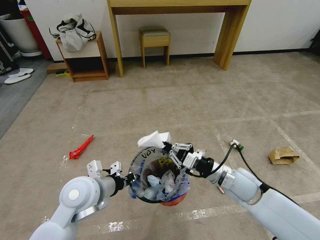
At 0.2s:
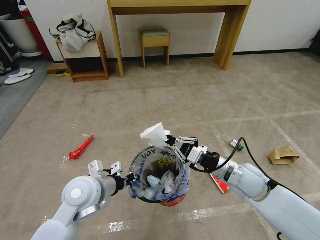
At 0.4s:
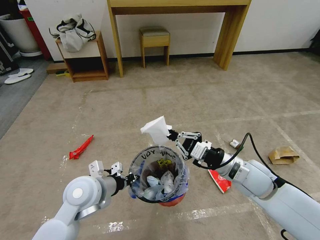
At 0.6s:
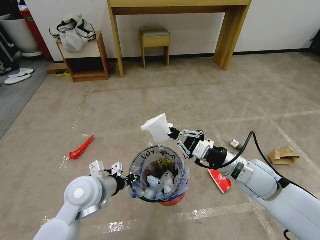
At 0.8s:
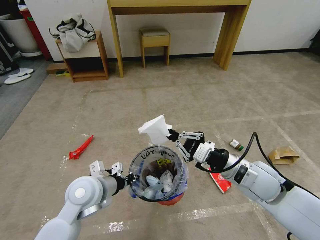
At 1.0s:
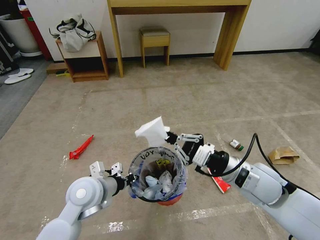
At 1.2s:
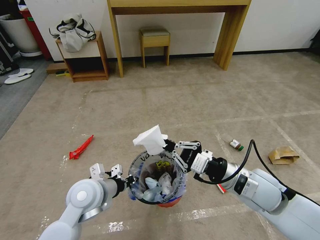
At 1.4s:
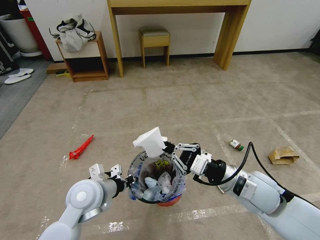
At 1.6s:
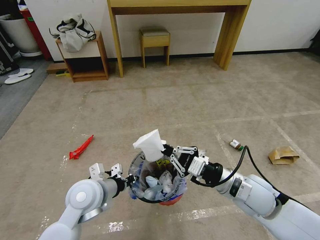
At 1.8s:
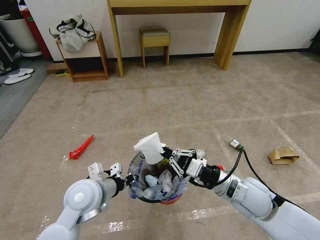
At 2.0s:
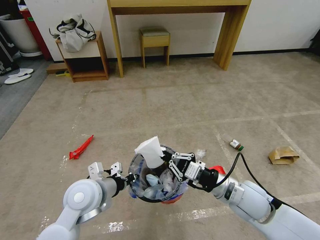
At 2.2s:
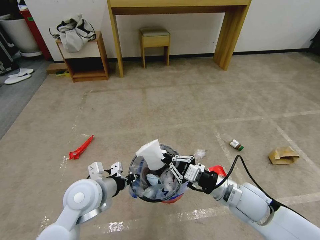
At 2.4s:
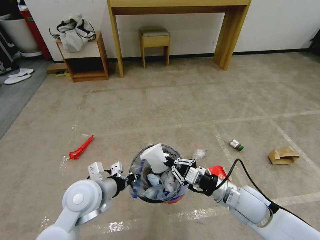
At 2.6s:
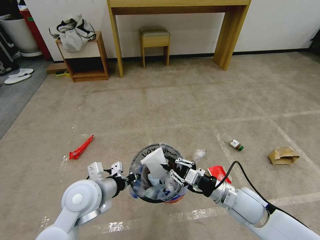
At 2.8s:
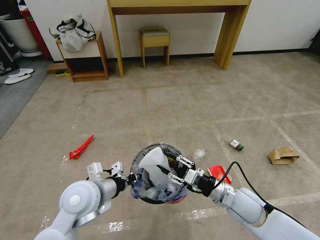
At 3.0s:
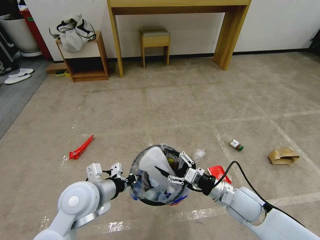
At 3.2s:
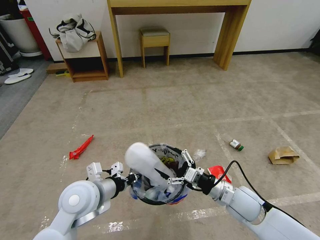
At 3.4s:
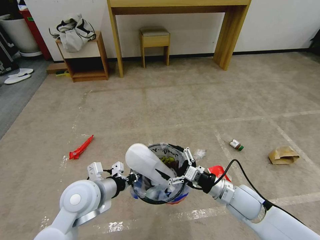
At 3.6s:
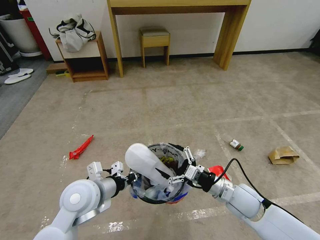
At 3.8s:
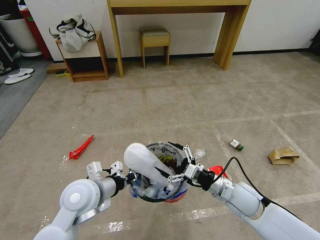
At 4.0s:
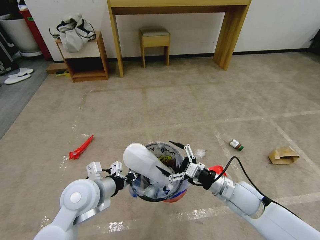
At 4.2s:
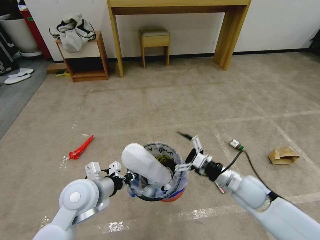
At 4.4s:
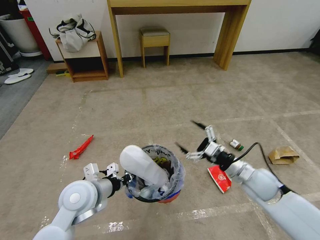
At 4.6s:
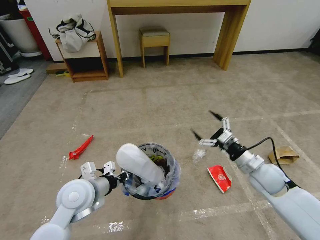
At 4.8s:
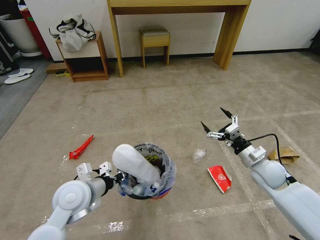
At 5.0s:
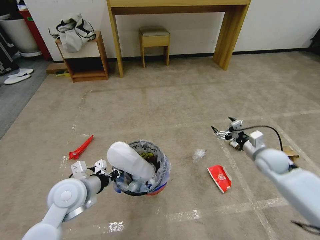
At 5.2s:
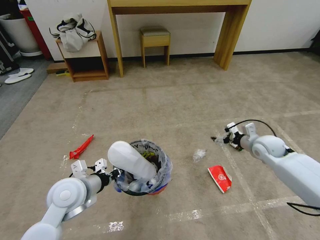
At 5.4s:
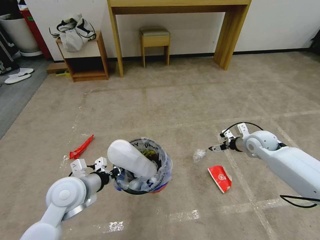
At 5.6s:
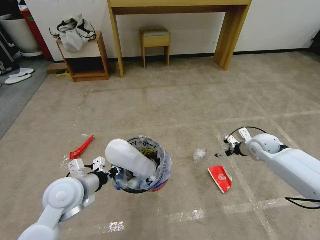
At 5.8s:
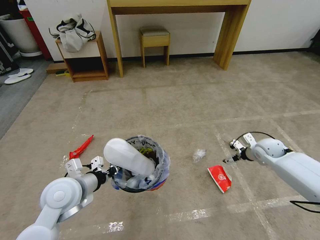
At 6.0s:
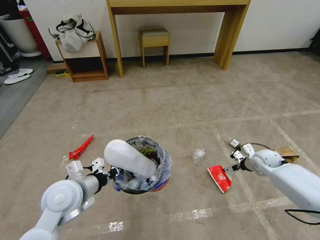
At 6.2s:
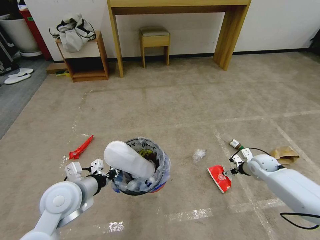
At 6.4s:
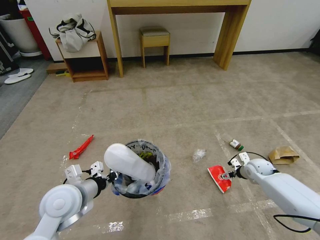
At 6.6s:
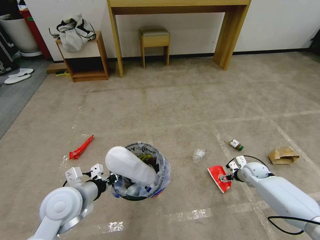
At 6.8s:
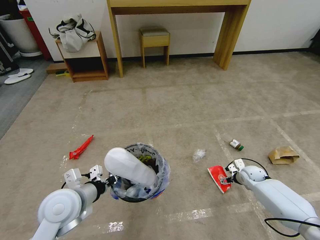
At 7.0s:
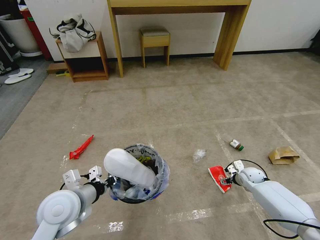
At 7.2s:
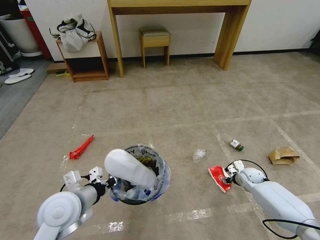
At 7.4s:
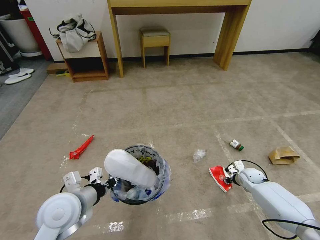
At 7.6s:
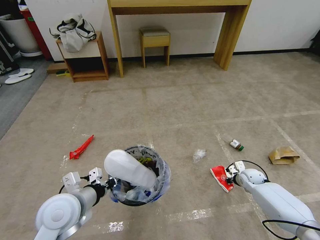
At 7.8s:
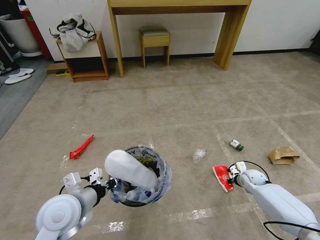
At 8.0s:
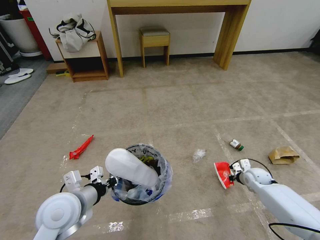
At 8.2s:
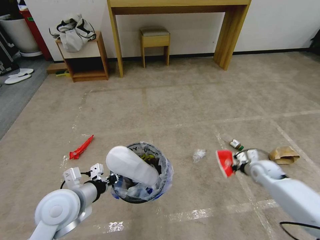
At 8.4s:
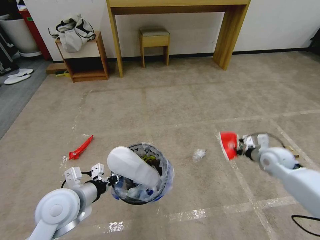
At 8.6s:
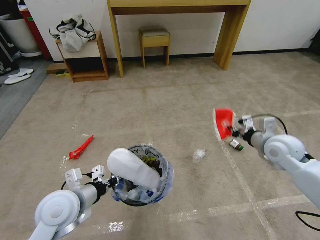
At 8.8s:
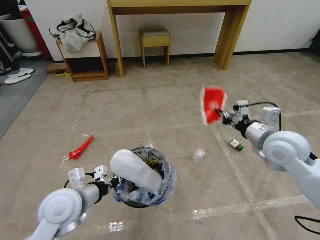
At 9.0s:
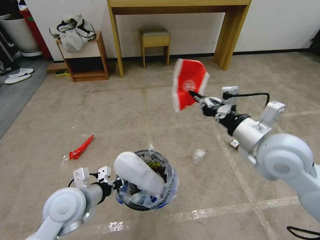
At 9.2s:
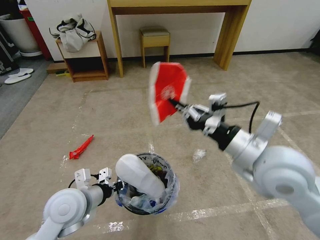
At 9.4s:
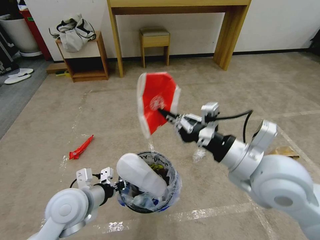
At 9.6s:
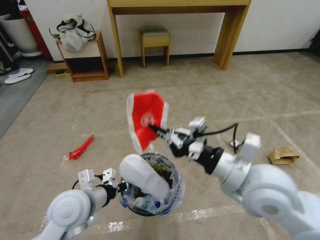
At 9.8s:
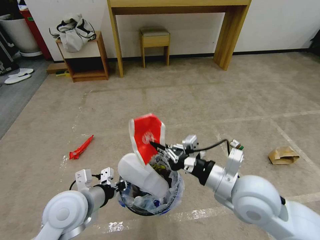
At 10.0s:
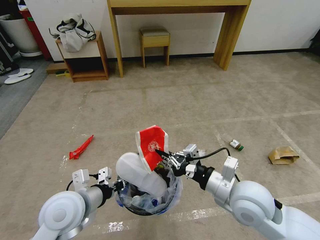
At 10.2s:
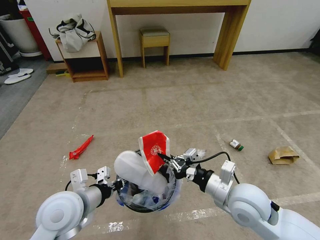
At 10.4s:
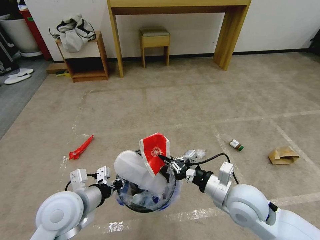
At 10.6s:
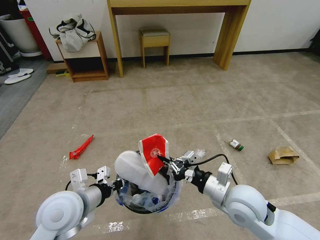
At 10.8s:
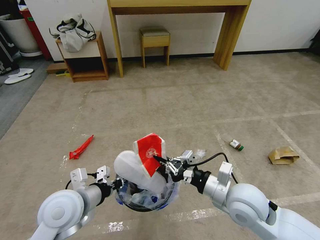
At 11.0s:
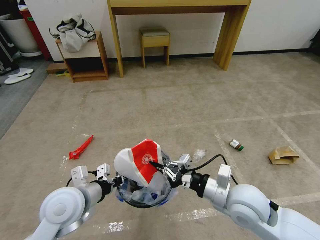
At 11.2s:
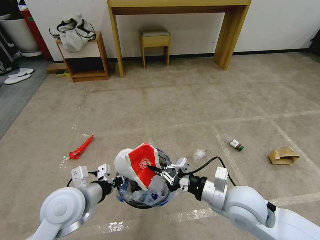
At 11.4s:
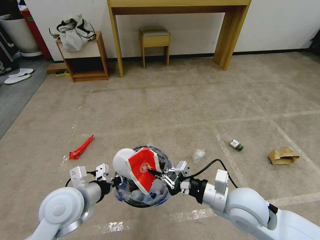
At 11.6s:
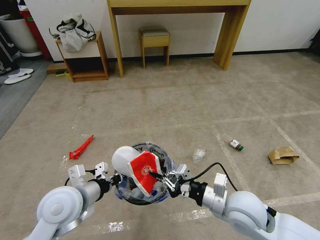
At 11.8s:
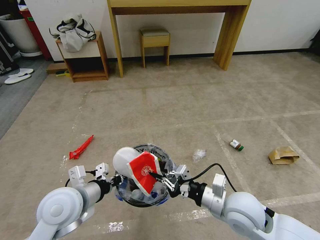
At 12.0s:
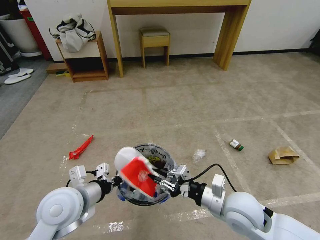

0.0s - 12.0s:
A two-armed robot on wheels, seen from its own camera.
Task of the whole recording: Pick up the trash bin and place the garbage on the floor into it.
0.0s - 1.6s: The right gripper shifts by approximately 5 cm.
1.6s - 3.0s: The right gripper shifts roughly 10 cm downward, and opens.
3.0s - 4.4s: The right gripper goes roughly 10 cm to the right and forward.
4.4s - 6.0s: The right gripper is displaced forward, to the right and downward by some 20 cm.
6.0s - 7.6s: The right gripper heads downward, covering approximately 10 cm, and closes up.
7.6s - 9.0s: The right gripper shifts approximately 40 cm upward and to the left.
9.0s - 10.4s: The right gripper goes about 15 cm downward and backward.
10.4s - 12.0s: The grippers move only a little.

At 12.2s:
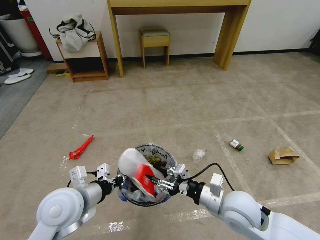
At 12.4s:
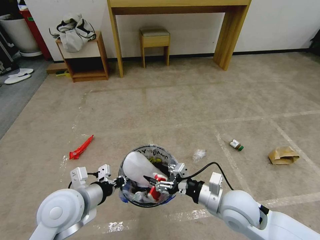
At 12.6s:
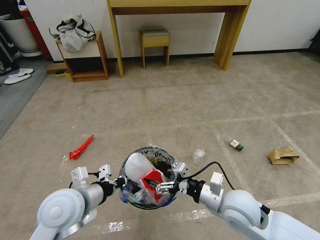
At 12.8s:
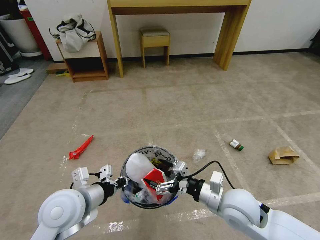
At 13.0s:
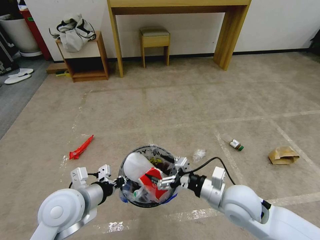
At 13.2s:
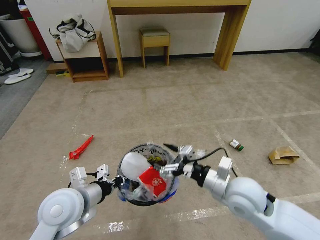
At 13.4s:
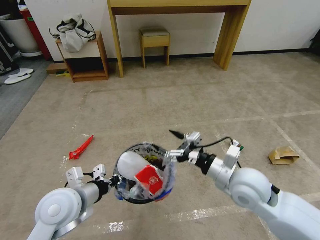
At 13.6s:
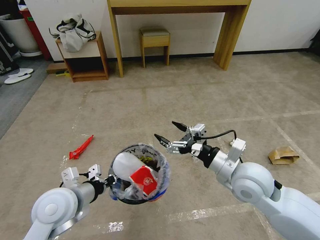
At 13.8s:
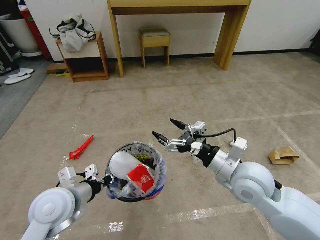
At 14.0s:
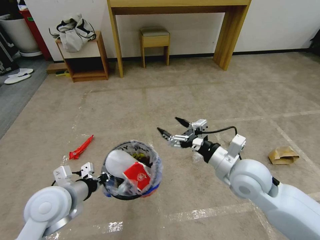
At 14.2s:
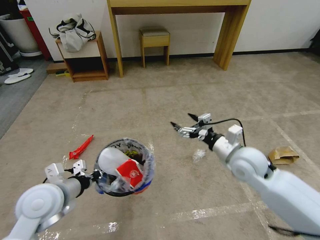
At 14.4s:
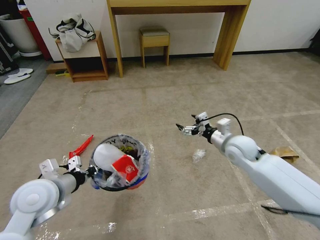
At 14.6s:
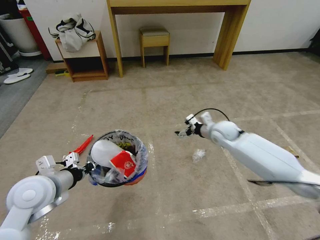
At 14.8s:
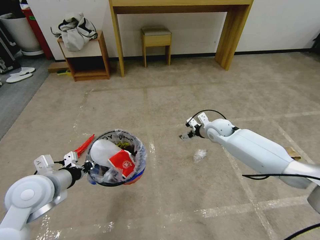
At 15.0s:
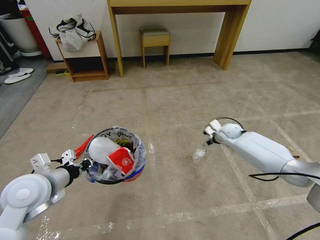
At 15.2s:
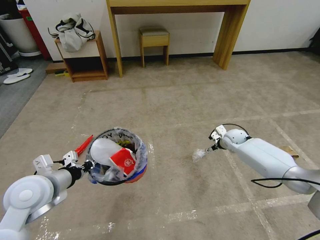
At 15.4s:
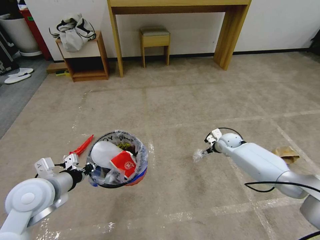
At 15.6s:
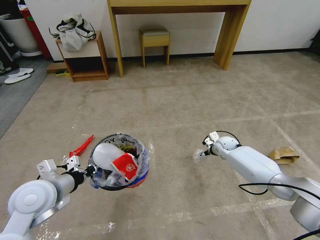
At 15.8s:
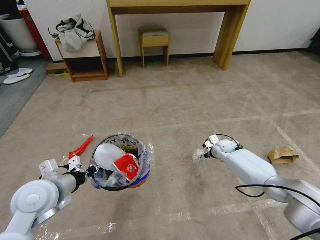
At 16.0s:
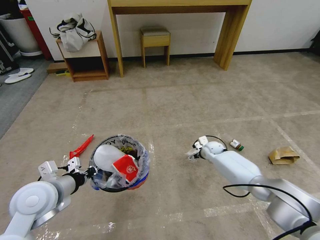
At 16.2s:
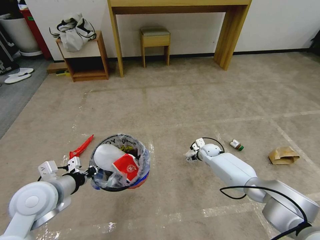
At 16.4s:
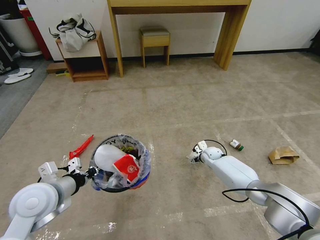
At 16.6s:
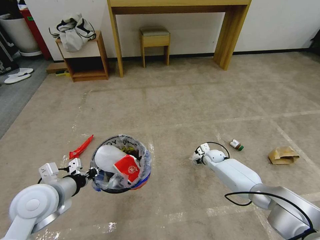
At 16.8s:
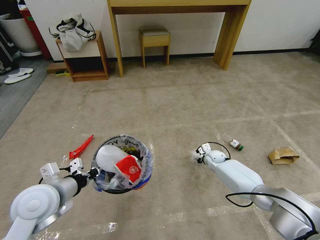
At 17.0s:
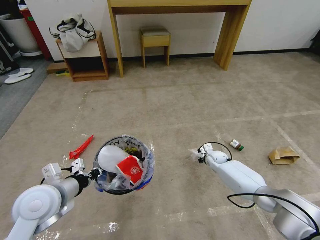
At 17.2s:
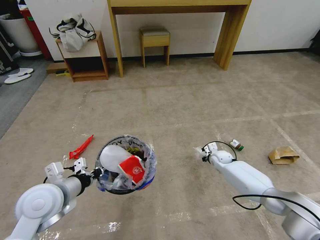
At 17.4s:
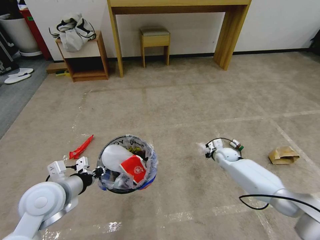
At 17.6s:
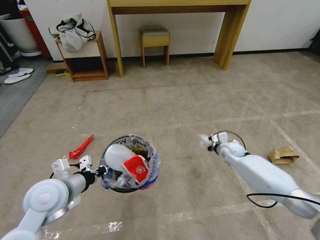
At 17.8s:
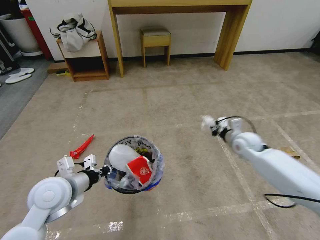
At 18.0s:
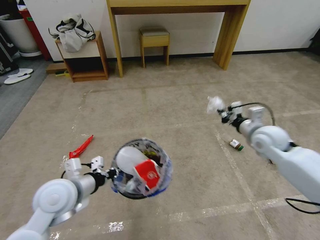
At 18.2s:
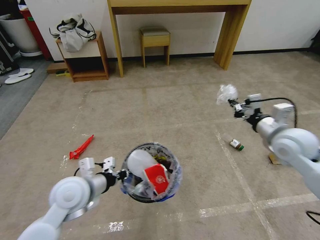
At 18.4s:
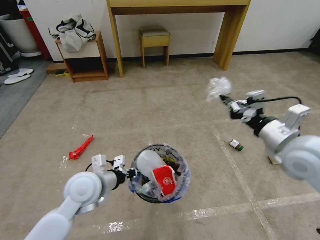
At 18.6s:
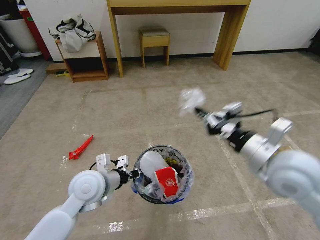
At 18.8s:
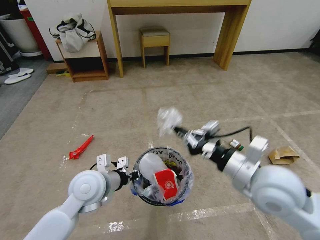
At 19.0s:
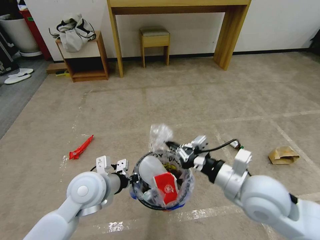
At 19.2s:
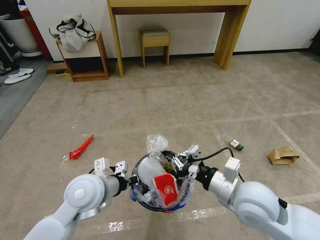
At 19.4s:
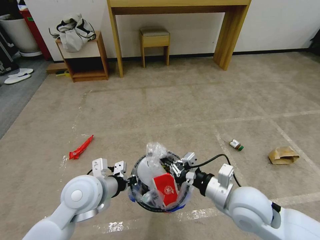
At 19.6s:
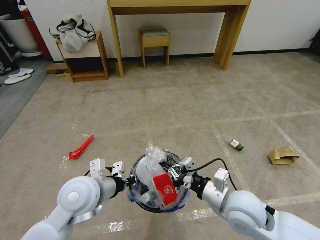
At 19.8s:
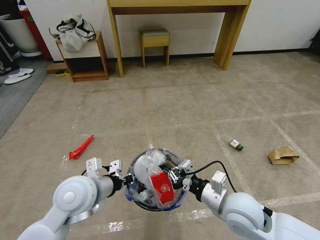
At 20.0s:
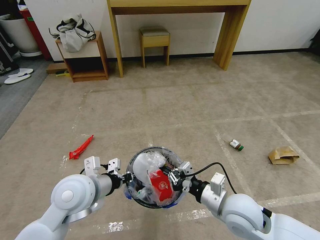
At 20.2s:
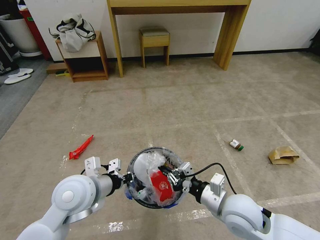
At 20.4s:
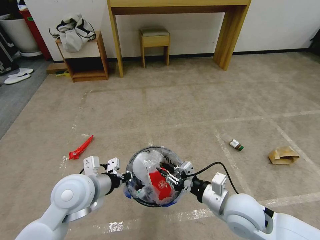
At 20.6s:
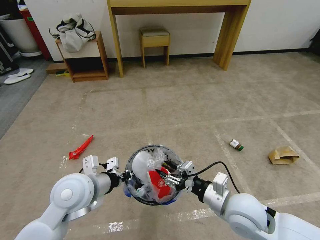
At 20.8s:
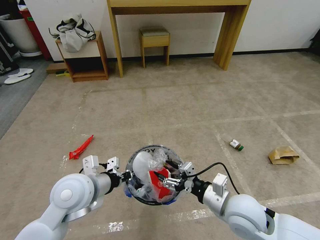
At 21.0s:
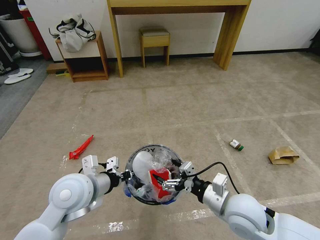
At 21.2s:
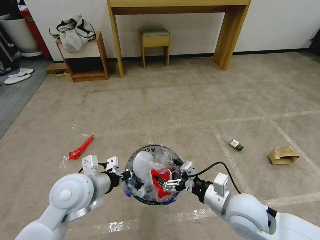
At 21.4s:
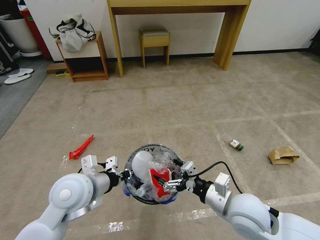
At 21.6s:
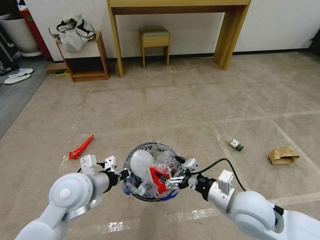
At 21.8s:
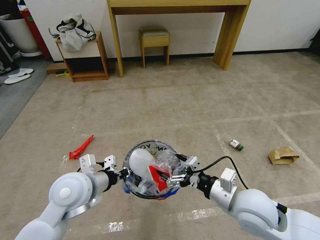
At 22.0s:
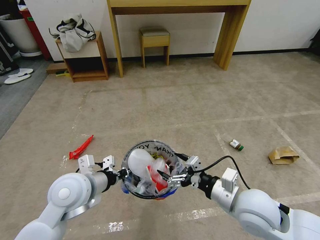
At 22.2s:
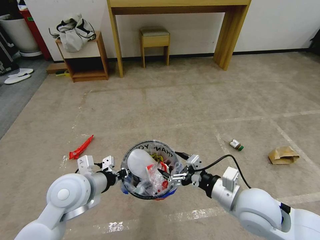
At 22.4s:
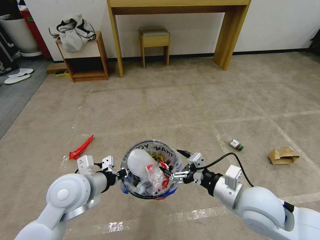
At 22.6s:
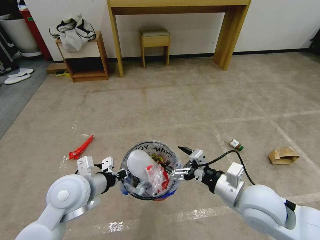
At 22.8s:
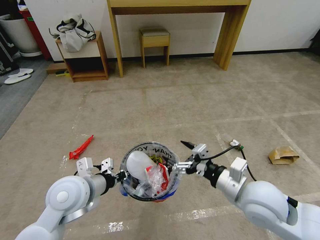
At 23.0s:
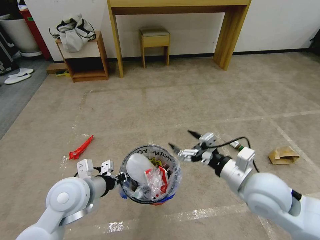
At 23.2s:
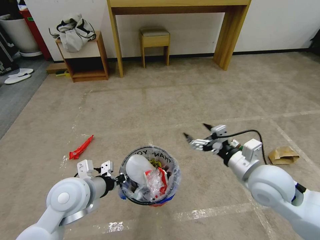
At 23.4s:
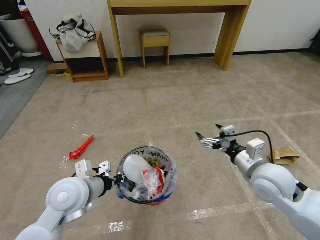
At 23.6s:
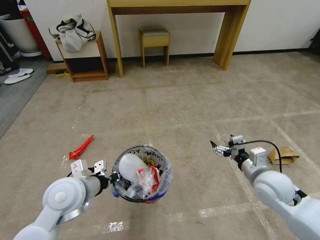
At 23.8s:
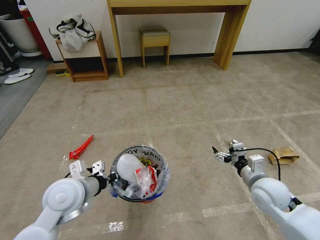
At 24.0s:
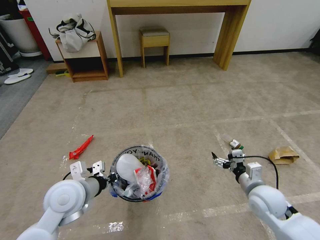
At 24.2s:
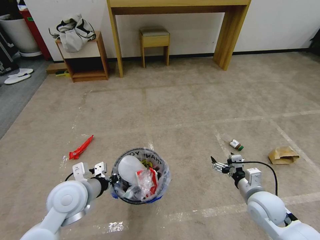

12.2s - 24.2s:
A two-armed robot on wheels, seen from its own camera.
Task of the whole recording: Pick up the trash bin and place the garbage on the floor into it.
12.2s - 13.8s: The right gripper is displaced upward by about 10 cm, and opens its fingers.
13.8s - 15.2s: The right gripper is displaced forward, downward and to the right by approximately 35 cm, while the left gripper travels to the left by some 5 cm.
15.2s - 16.6s: The right gripper heads downward and to the left, covering approximately 15 cm.
16.6s - 18.2s: The left gripper is displaced to the right by approximately 5 cm, while the right gripper moves upward and backward, approximately 35 cm, and closes its fingers.
18.2s - 19.8s: The right gripper shifts approximately 25 cm to the left, backward and downward.
19.8s - 21.2s: The right gripper opens its fingers.
21.2s - 22.6s: The grippers make only small movements.
22.6s - 24.2s: The right gripper heads downward and to the right, covering about 15 cm.
